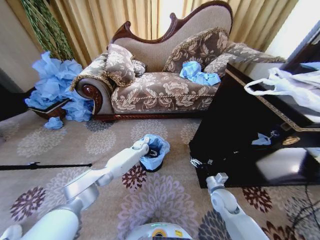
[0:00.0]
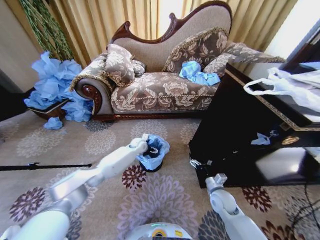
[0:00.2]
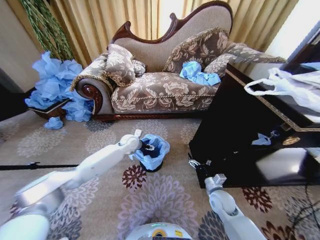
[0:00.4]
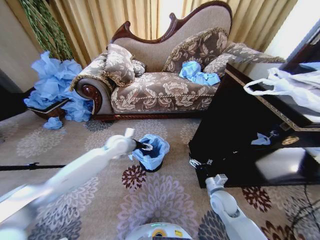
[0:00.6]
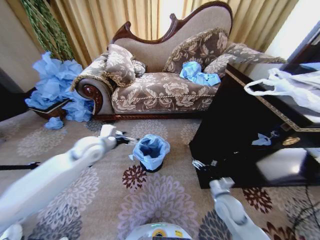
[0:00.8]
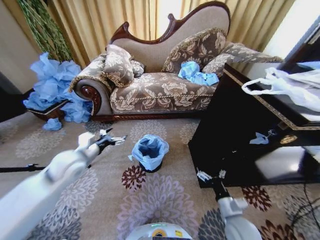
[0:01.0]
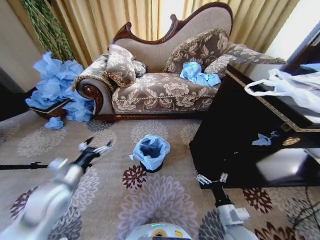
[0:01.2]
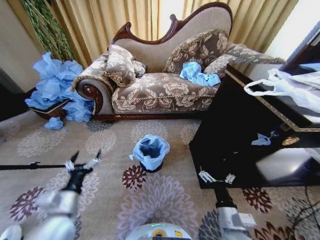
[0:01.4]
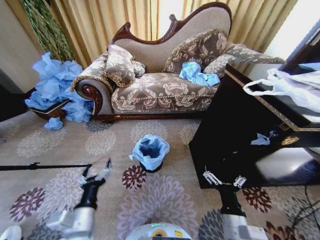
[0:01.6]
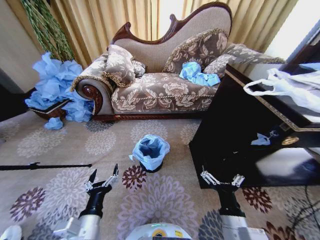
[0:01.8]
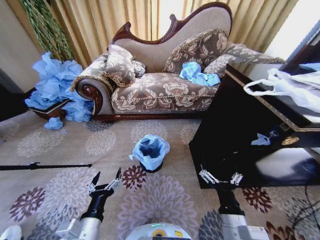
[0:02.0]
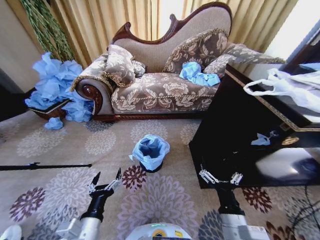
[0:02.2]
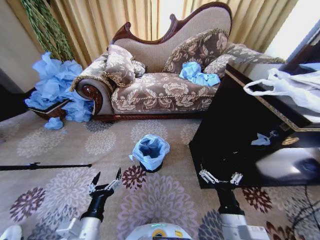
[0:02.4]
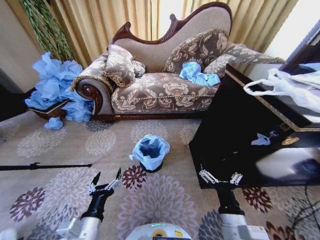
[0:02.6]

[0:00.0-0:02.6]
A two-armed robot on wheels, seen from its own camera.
Task of the whole recording: Place a garbage bag over the trash bin.
0:00.0 to 0:01.2: The left gripper moves backward, to the left and upward, about 40 cm. The right gripper goes roughly 15 cm backward.
0:01.2 to 0:02.6: The right gripper travels upward and to the left by some 10 cm. Meanwhile the left gripper moves backward, to the right and downward, some 20 cm.
